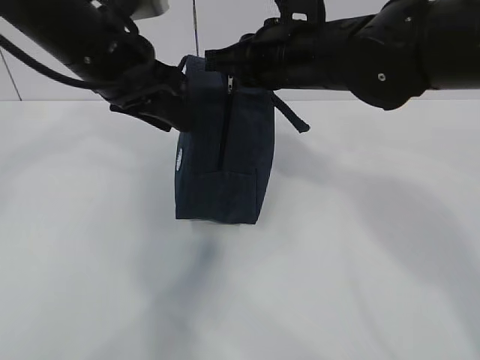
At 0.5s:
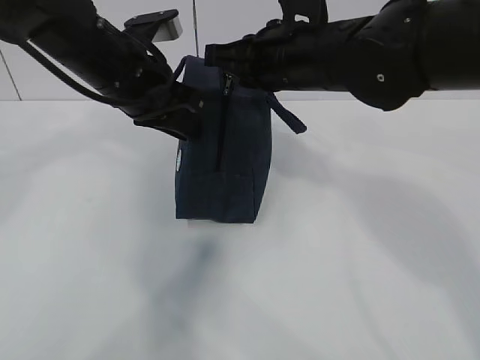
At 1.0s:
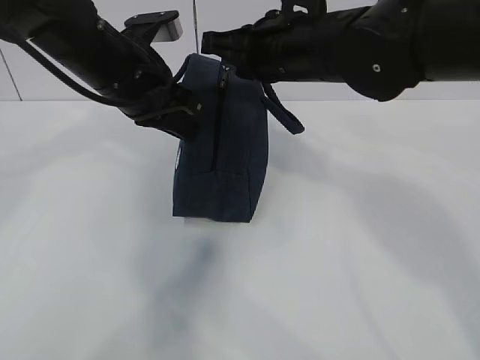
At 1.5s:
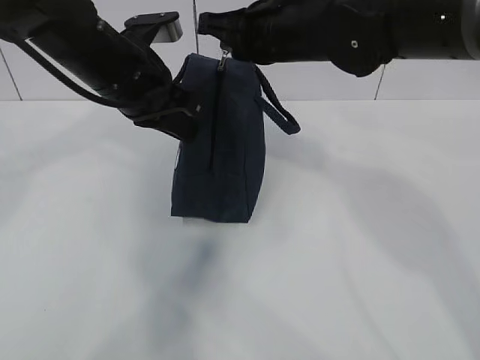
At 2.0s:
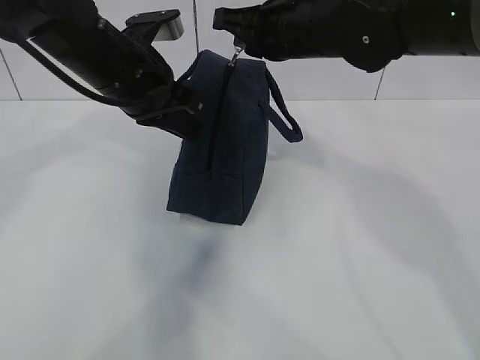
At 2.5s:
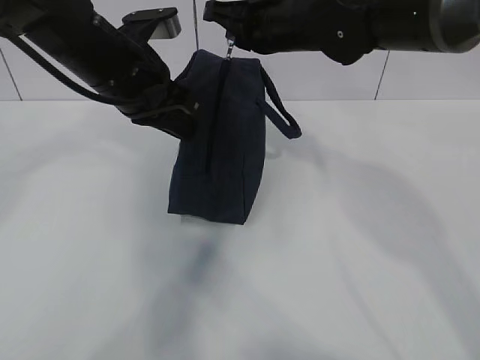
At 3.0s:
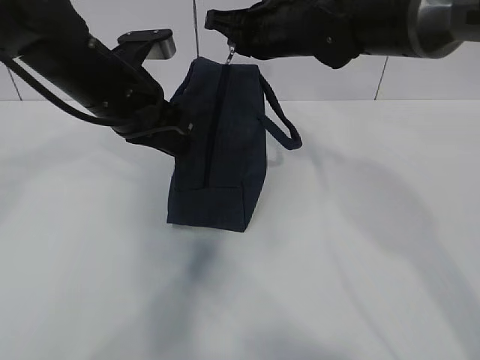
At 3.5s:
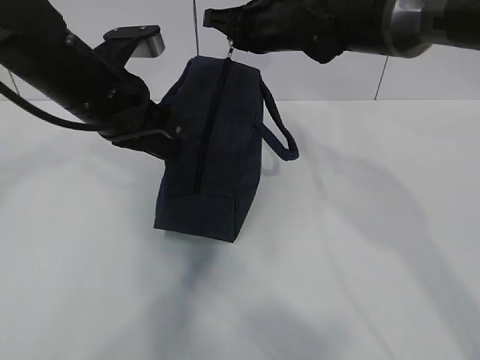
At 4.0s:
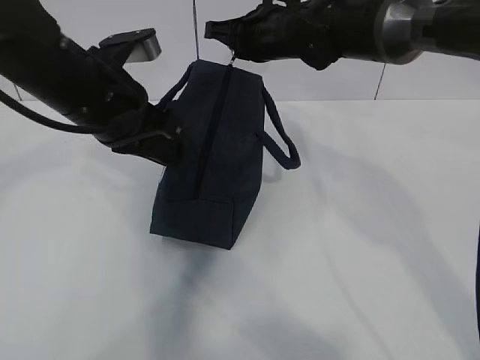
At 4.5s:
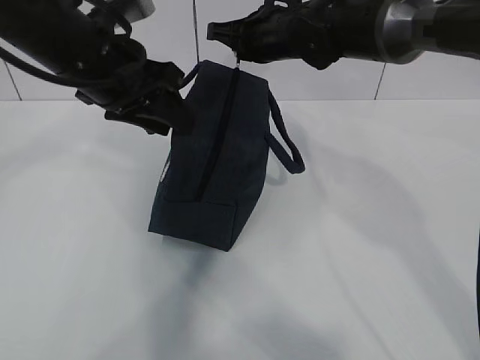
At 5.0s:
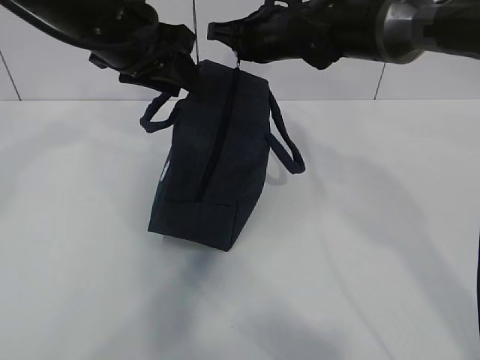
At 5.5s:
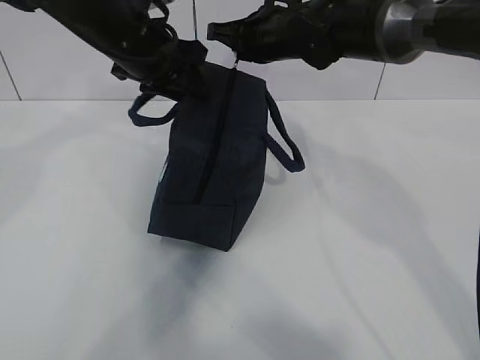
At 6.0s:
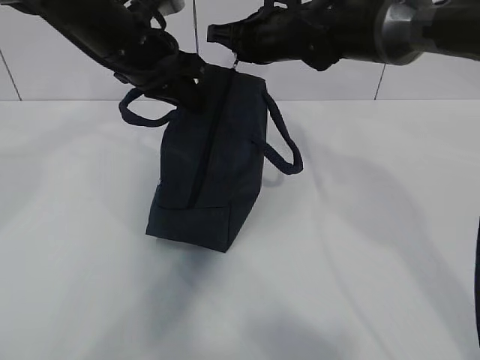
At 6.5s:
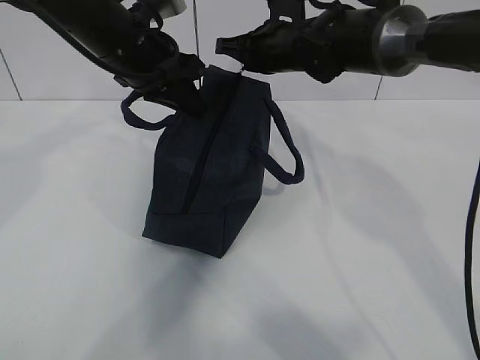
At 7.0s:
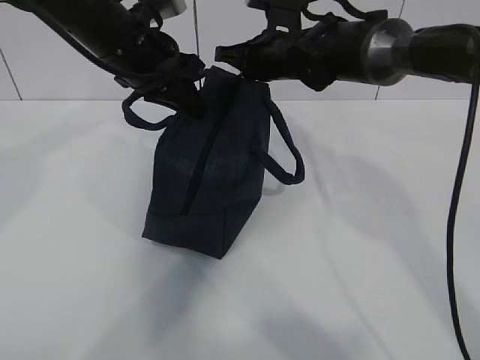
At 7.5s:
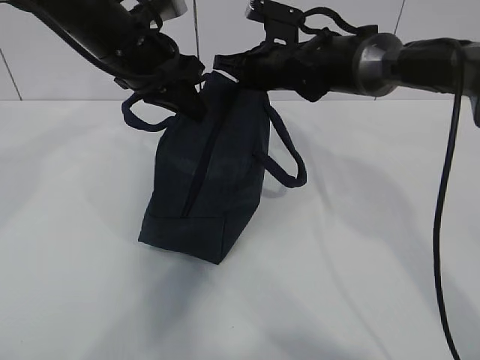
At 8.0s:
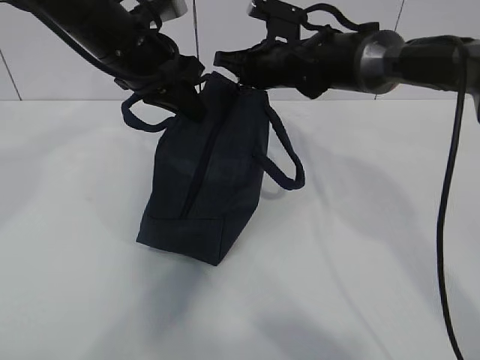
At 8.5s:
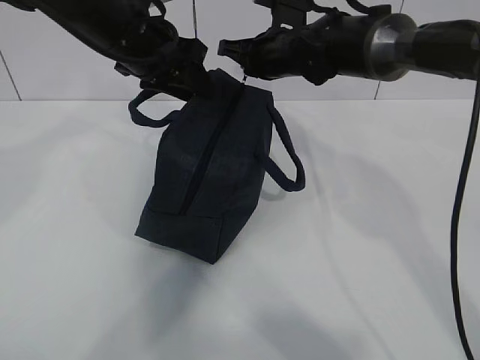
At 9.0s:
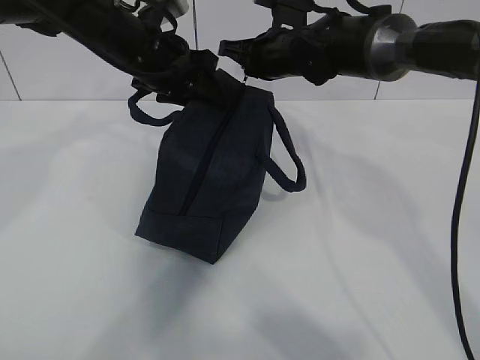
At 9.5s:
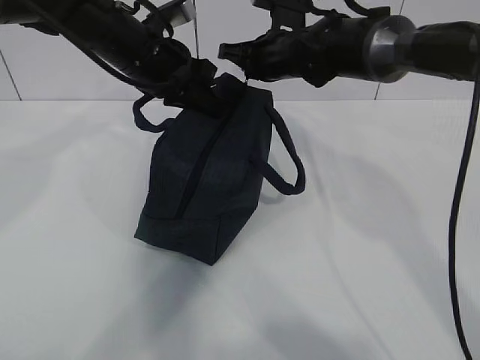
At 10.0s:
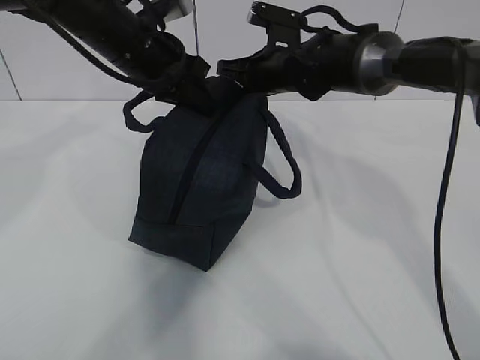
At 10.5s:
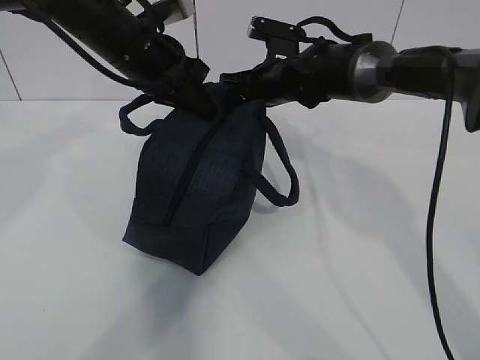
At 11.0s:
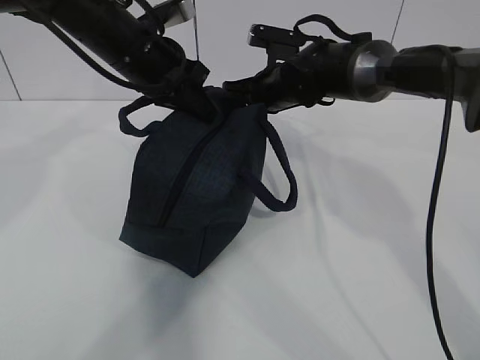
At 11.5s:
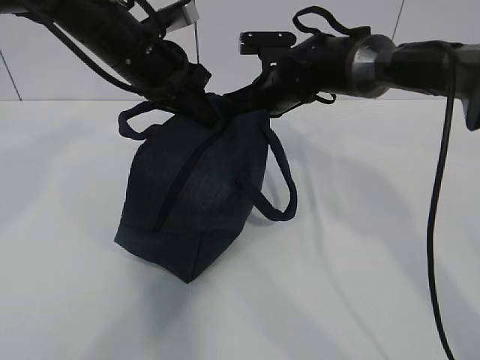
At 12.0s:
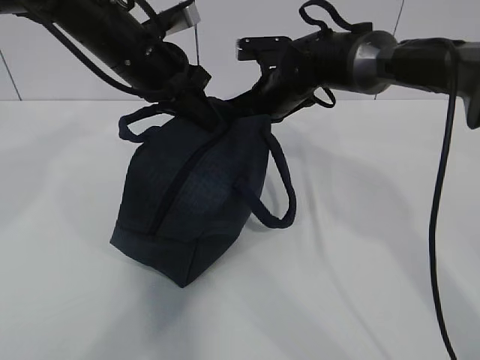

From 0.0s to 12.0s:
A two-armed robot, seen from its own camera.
From 0.0s to 2.0s: The left gripper closes its fingers.
From 2.0s to 4.0s: The right gripper heads forward, covering roughly 5 cm.
From 4.0s to 6.0s: The left gripper moves forward, roughly 10 cm, and opens, then closes again.
From 6.0s to 8.0s: The right gripper goes about 5 cm downward.
From 8.0s to 10.0s: The left gripper opens, then closes once more.

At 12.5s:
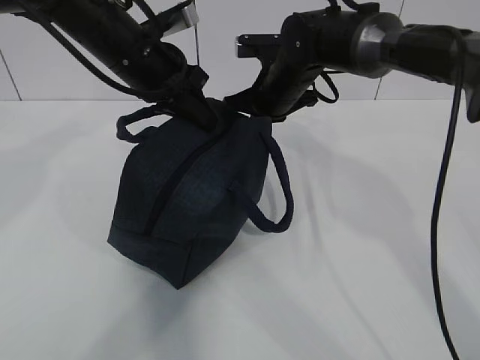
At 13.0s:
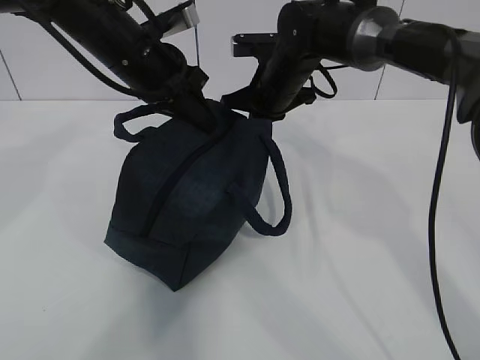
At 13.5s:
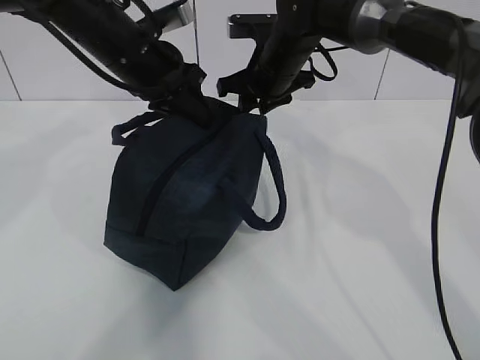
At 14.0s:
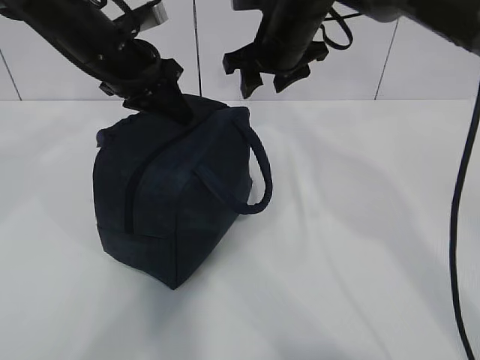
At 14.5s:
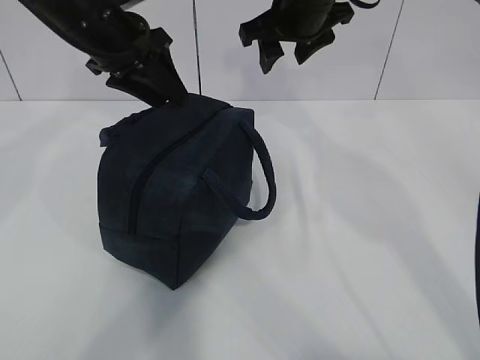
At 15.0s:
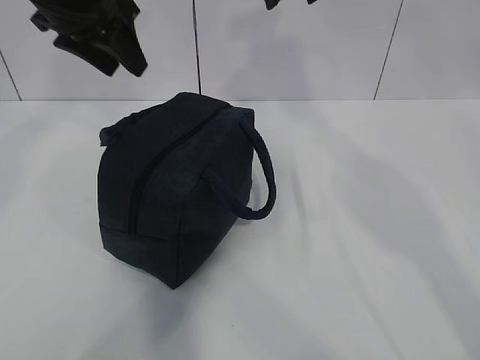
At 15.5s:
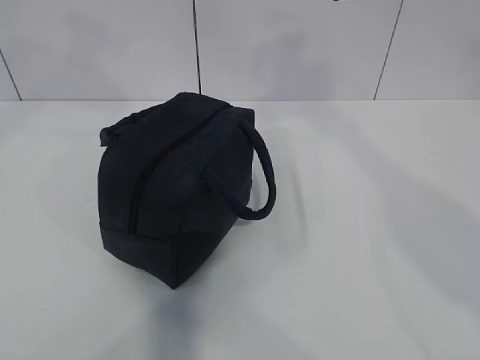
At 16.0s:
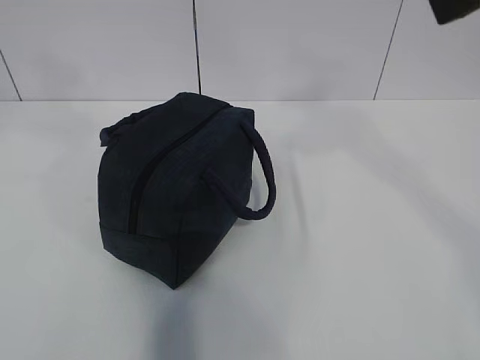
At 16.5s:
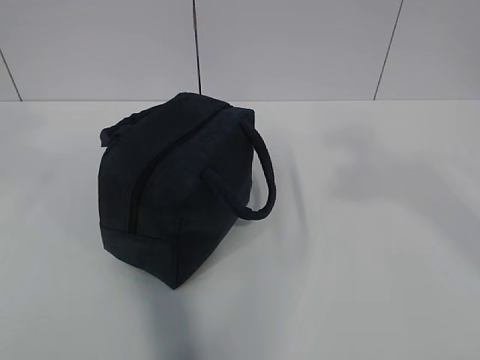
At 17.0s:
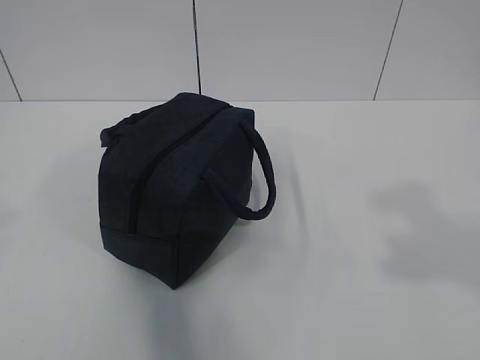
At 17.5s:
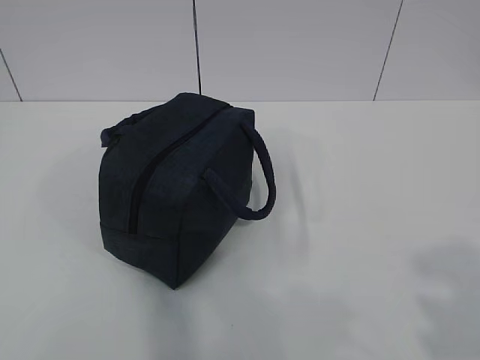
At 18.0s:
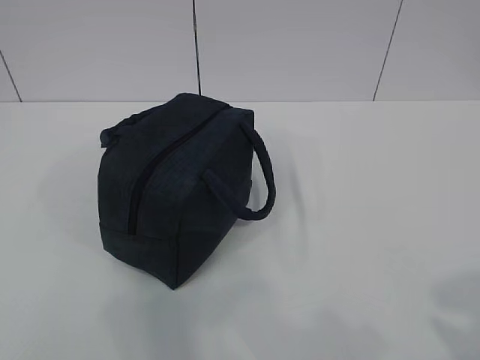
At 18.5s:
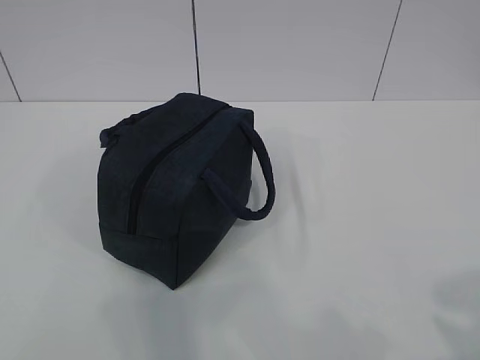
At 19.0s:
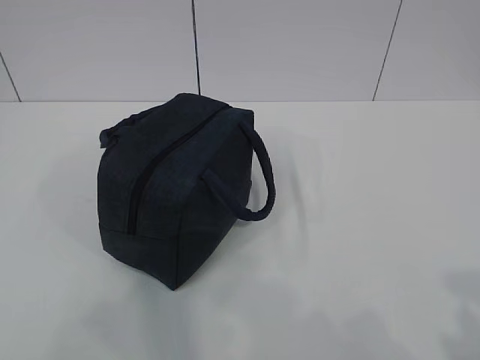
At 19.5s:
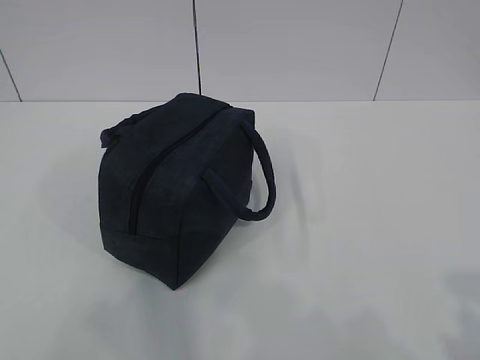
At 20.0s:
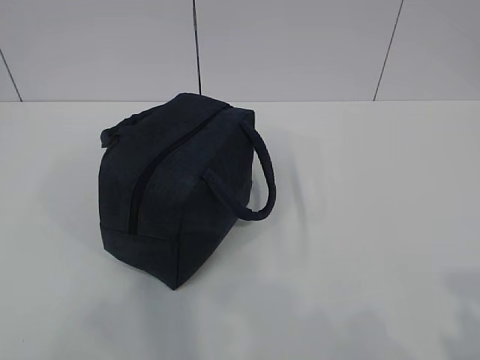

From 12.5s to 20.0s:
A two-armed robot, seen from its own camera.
Step, from 12.5s to 14.5s: zip up the zipper to close the bag.
From 12.5s to 14.5s: The right gripper shifts approximately 10 cm upward, and opens up. The left gripper shifts by about 5 cm, and opens.
From 14.5s to 16.5s: The left gripper goes roughly 35 cm backward and upward. The right gripper heads backward and to the right, covering roughly 35 cm.
From 16.5s to 18.0s: Both grippers move downward and backward, some 20 cm.

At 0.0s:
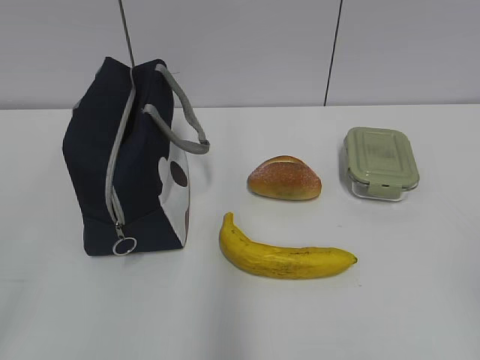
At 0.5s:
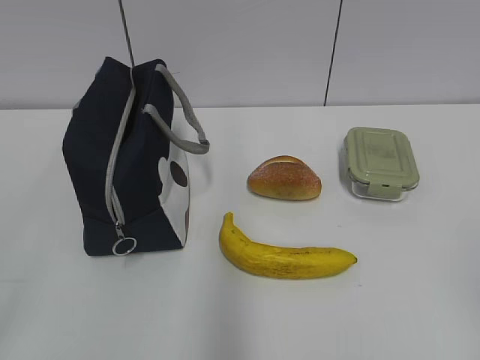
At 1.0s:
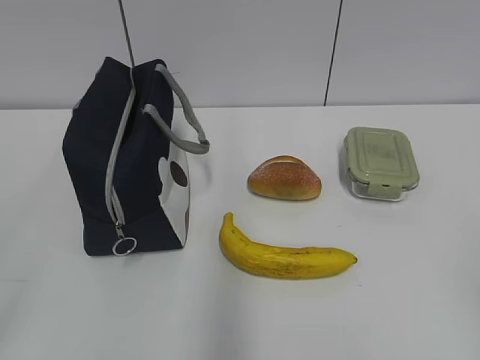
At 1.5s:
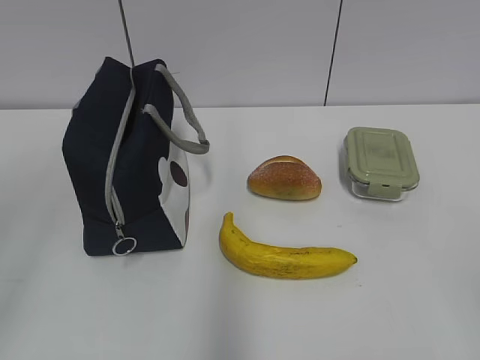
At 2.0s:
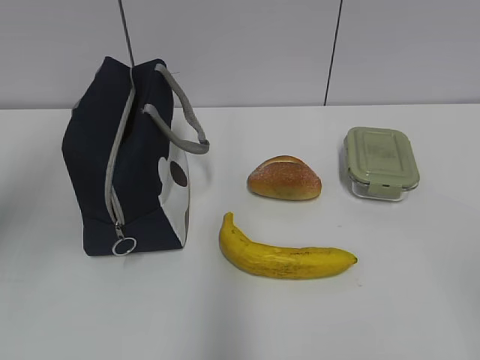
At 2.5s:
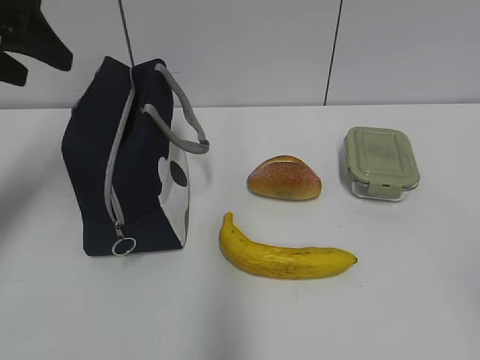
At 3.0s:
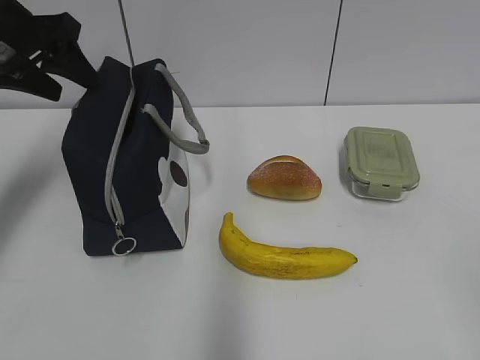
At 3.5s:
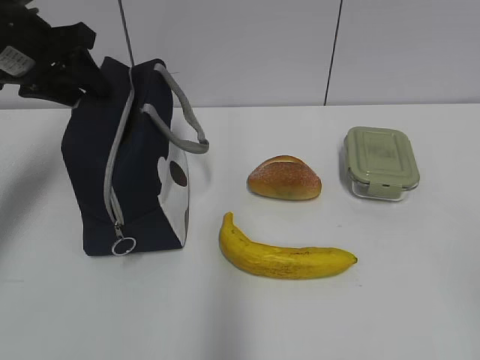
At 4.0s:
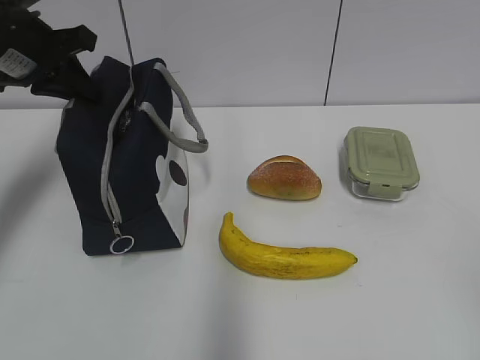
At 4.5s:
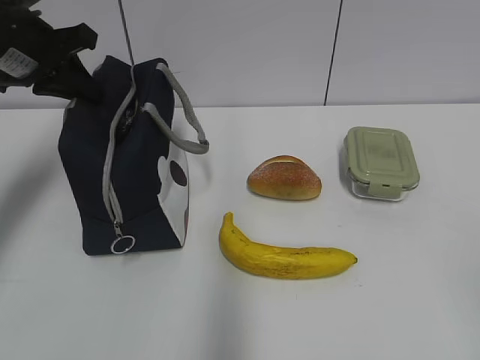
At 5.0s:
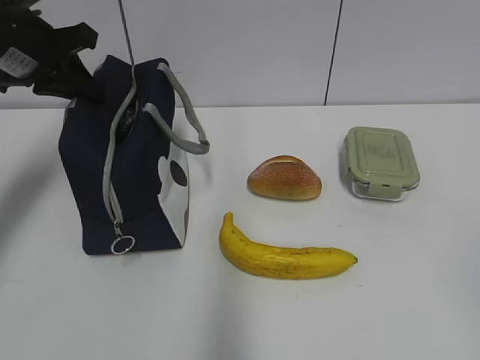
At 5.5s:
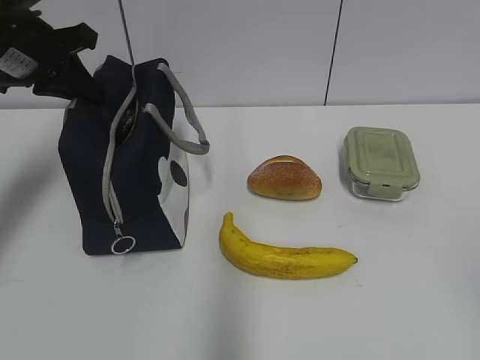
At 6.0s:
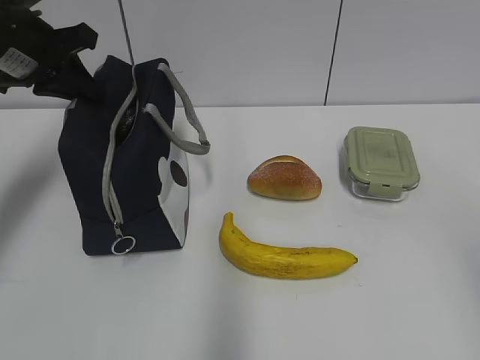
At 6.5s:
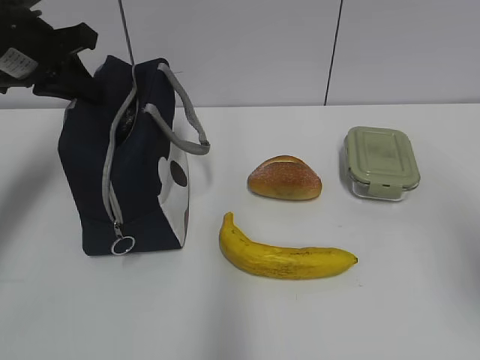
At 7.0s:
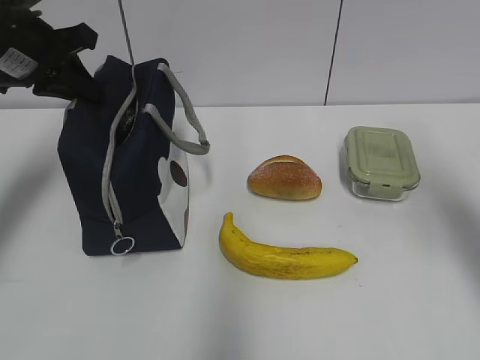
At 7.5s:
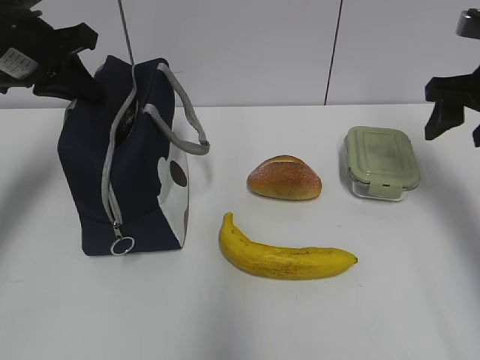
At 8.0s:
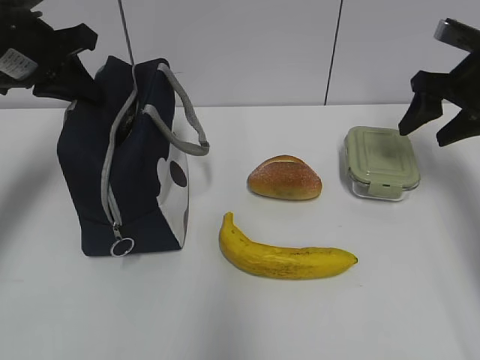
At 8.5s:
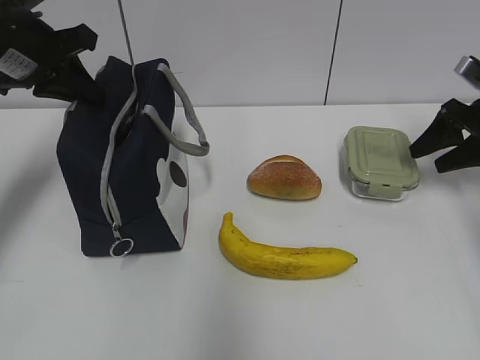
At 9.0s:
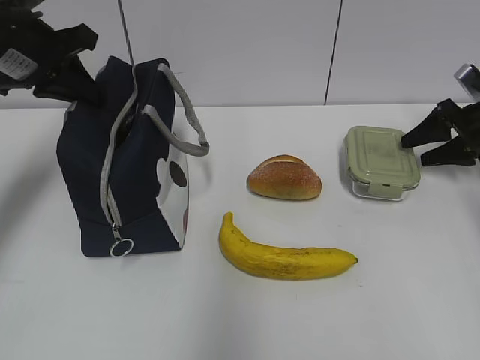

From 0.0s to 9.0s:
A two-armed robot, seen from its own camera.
From 2.0s to 4.5s: The left gripper heads forward and downward, covering about 25 cm, and closes its fingers.
From 4.5s to 7.0s: The right gripper goes about 25 cm forward.
From 7.0s to 9.0s: The right gripper heads forward, downward and to the right, covering approximately 30 cm.
